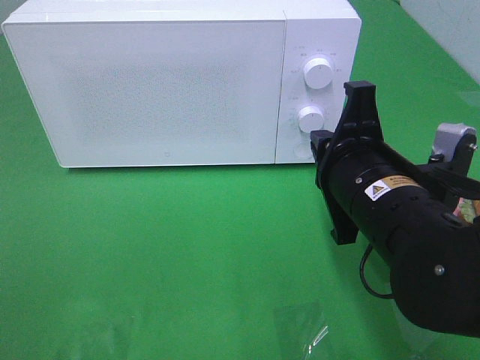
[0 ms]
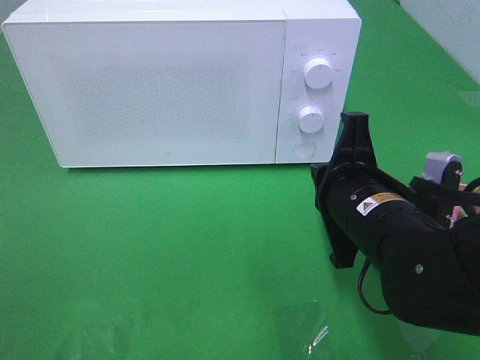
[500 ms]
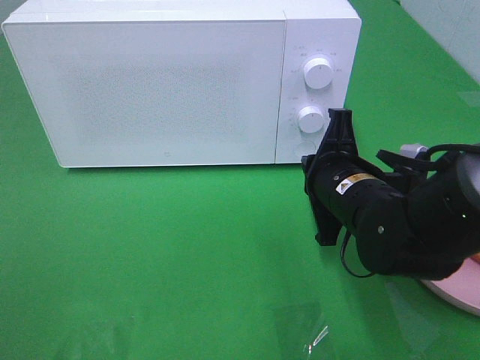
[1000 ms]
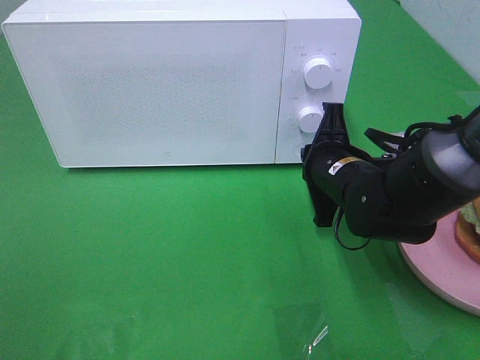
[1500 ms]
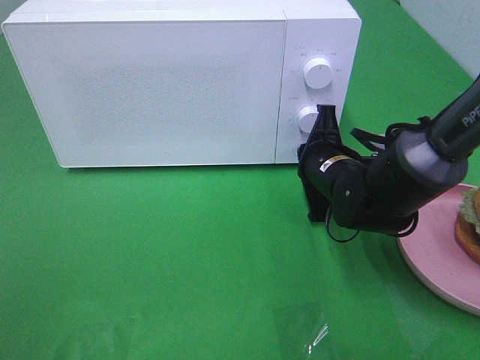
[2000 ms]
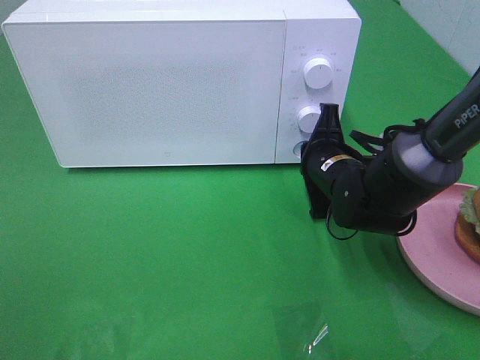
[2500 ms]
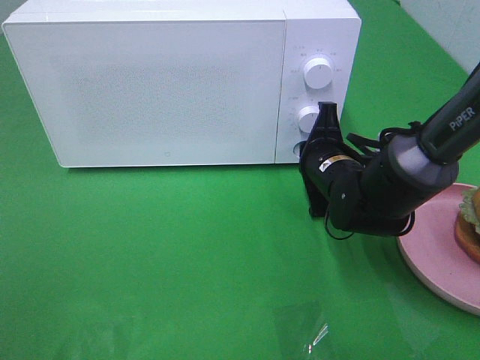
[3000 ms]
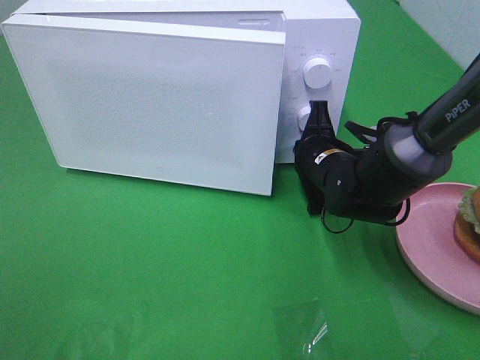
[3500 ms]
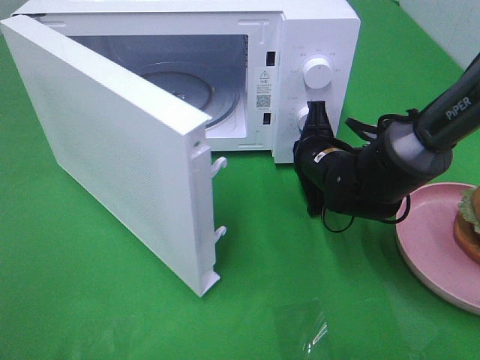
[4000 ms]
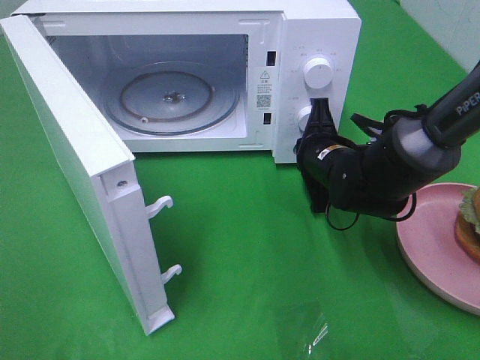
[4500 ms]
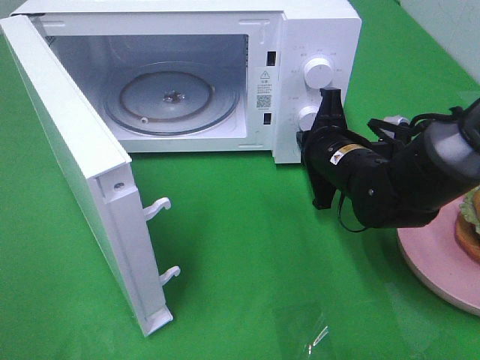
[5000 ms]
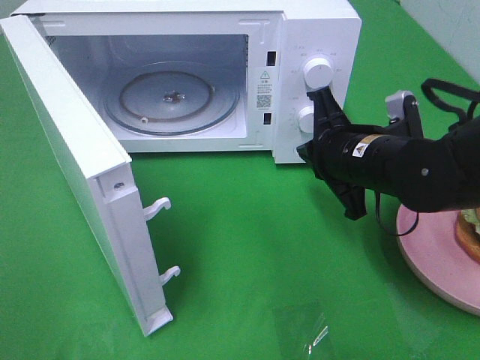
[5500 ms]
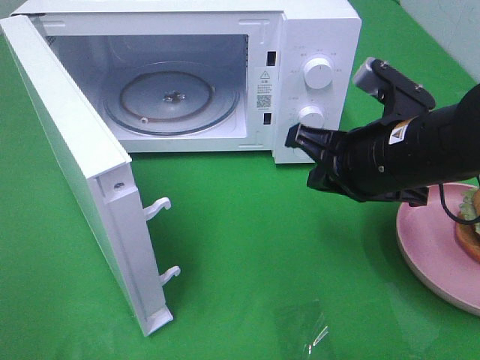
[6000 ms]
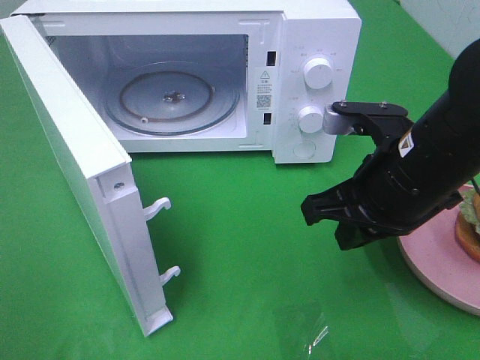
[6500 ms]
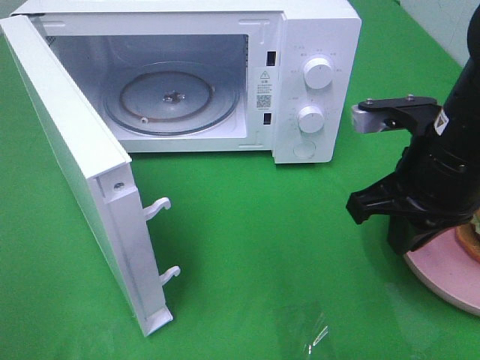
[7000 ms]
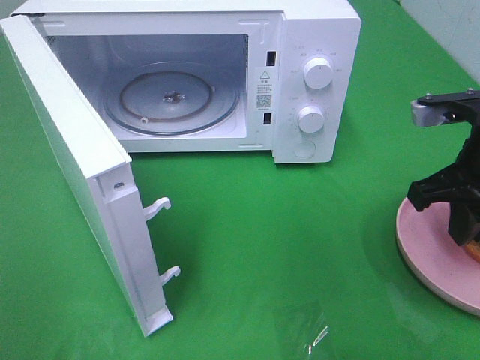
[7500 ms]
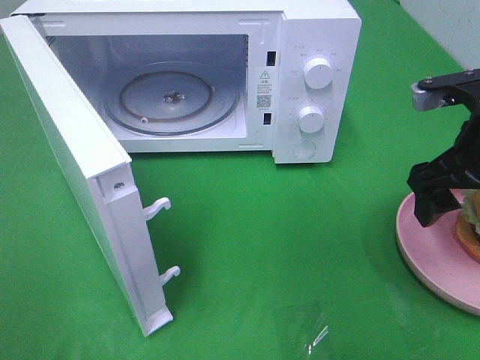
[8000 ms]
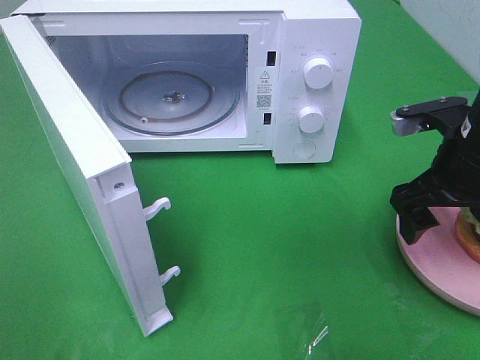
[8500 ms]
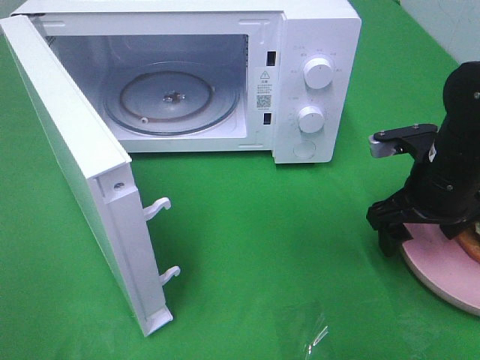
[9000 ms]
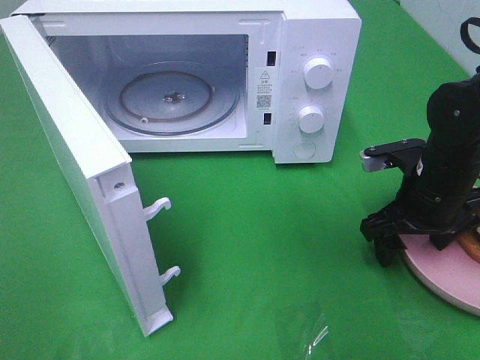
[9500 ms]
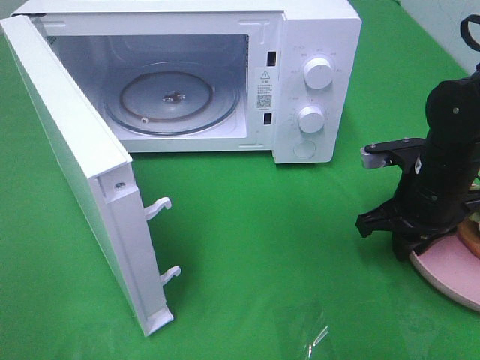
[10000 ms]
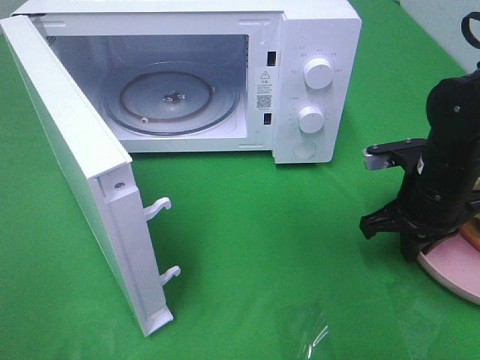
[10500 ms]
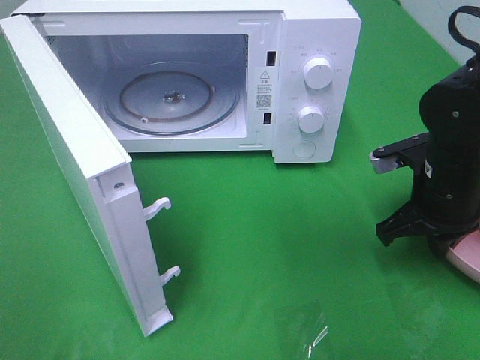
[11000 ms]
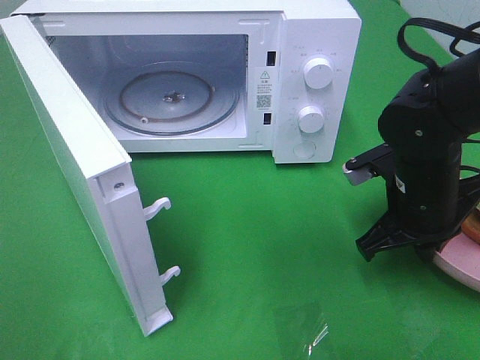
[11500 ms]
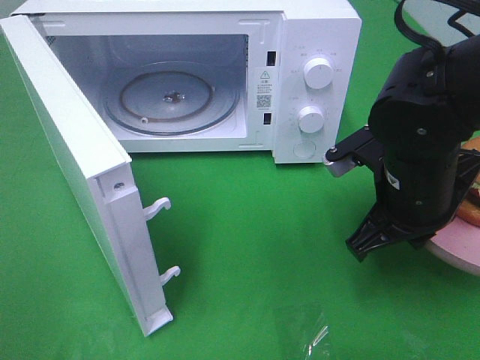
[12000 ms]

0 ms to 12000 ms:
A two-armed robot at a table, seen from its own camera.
Task of the whole recording: Heat the burger.
Step, 0 ms to 4500 ms: Right hand: press the switch.
Step, 5000 ms to 10500 ms: Right hand: grab the plate with the hamburger.
0 ms to 2000 ms: The right gripper moves forward and downward, roughly 15 cm.
4000 ms to 6000 ms: The right gripper is displaced backward and upward by some 15 cm.
6000 ms to 8000 ms: The right gripper heads to the right, covering some 10 cm, and opens up.
8000 ms to 10000 ms: The right gripper travels downward by approximately 10 cm, and closes up.
10000 ms to 12000 ms: The right gripper travels to the left and upward by roughly 10 cm.

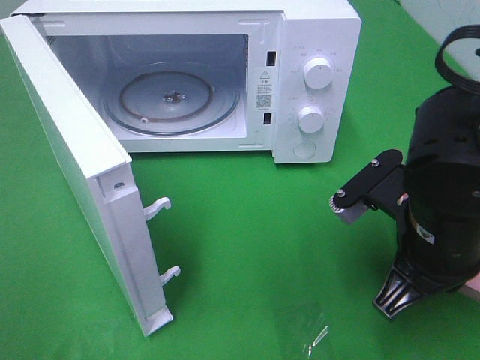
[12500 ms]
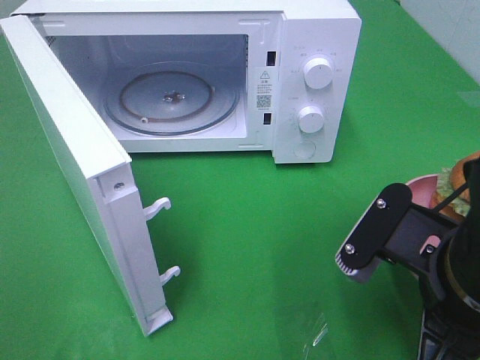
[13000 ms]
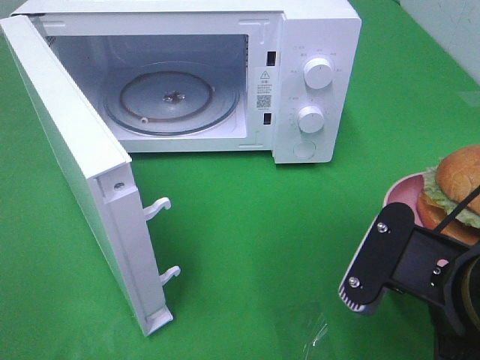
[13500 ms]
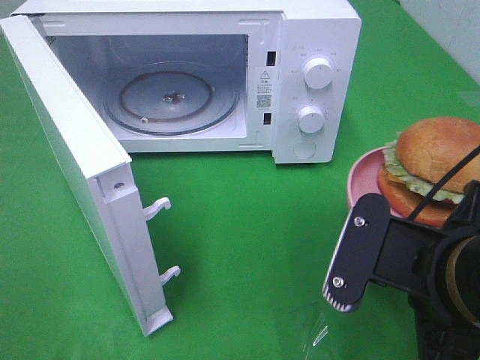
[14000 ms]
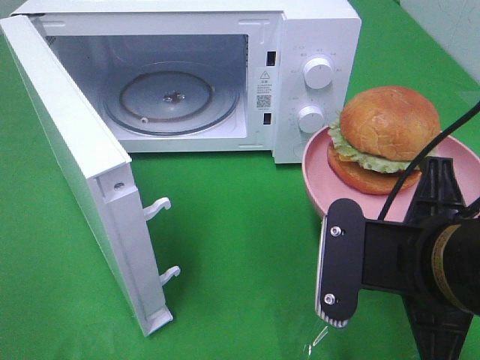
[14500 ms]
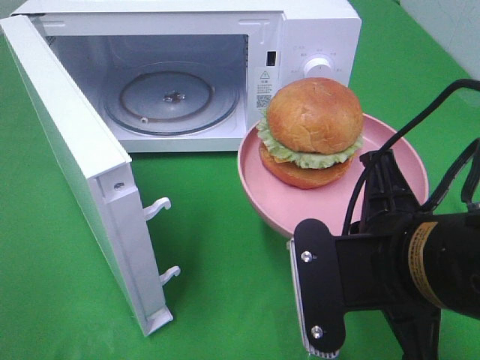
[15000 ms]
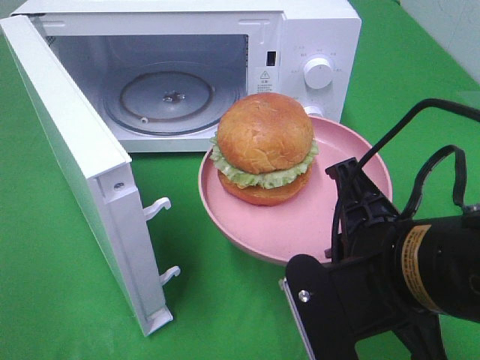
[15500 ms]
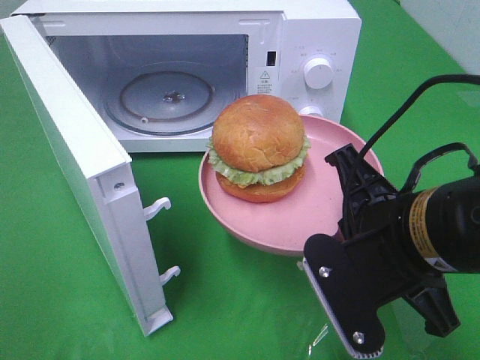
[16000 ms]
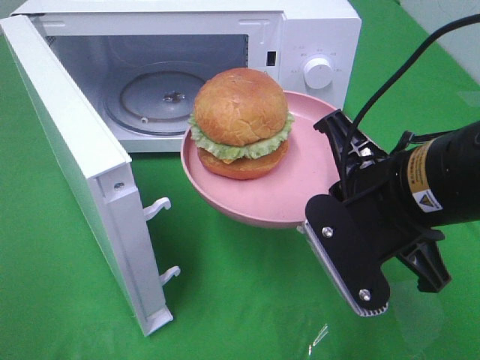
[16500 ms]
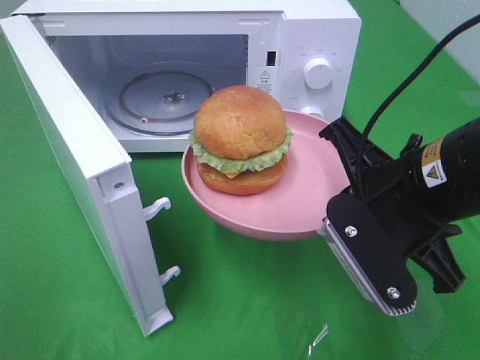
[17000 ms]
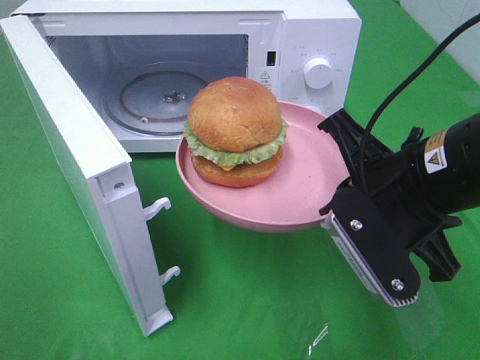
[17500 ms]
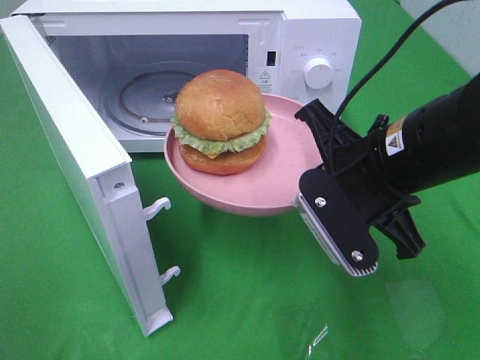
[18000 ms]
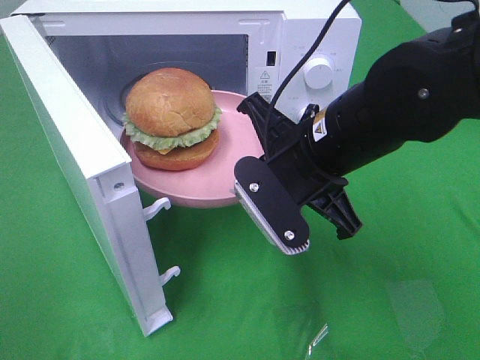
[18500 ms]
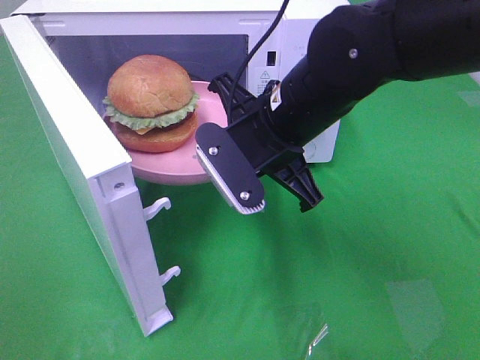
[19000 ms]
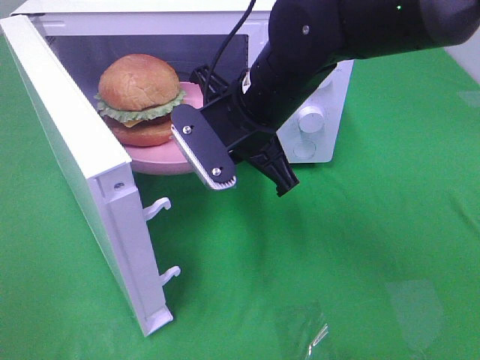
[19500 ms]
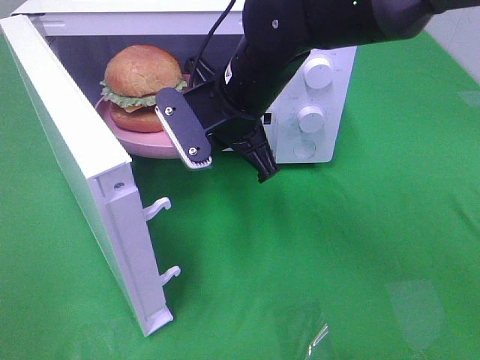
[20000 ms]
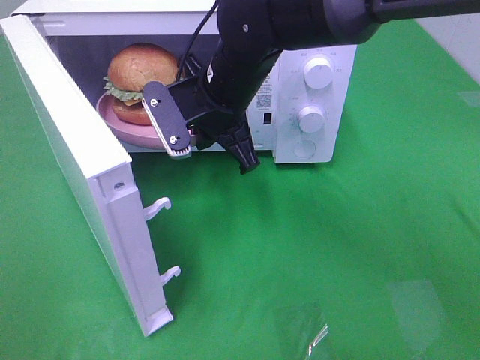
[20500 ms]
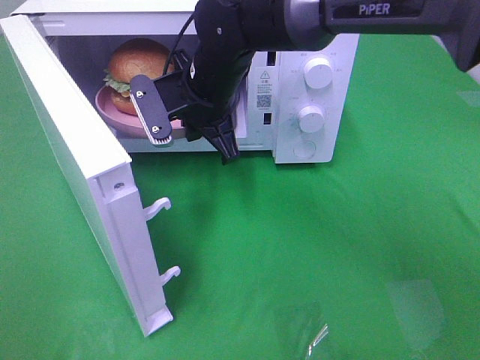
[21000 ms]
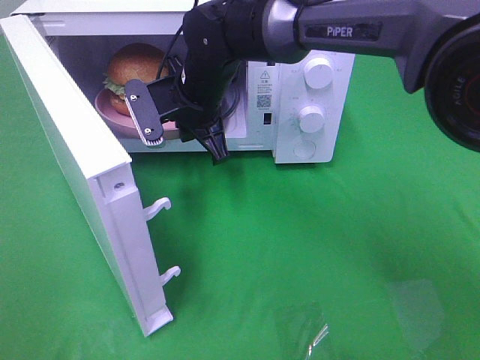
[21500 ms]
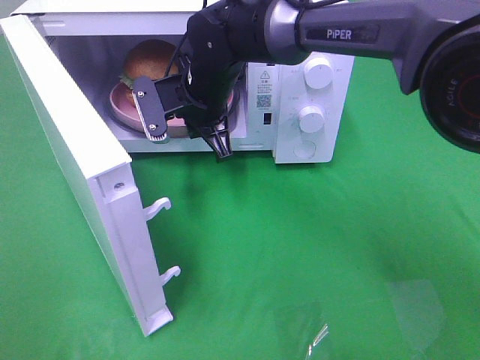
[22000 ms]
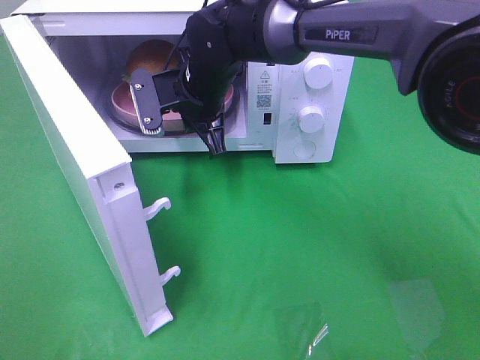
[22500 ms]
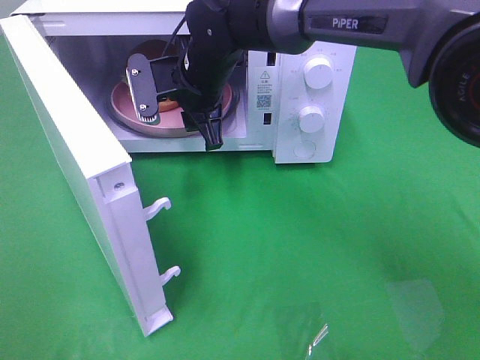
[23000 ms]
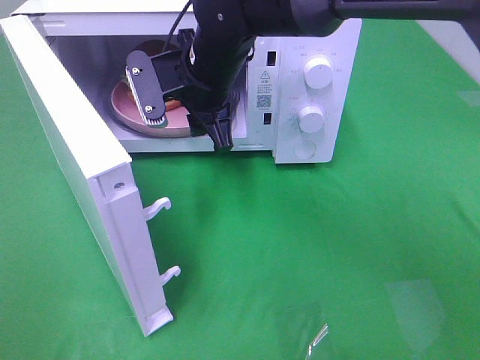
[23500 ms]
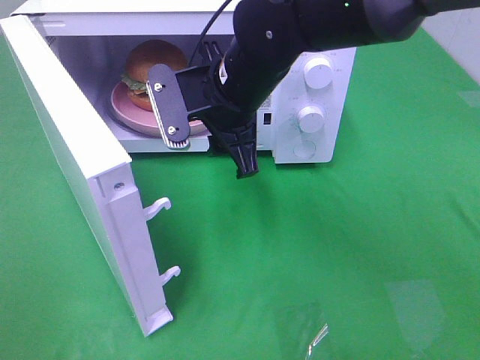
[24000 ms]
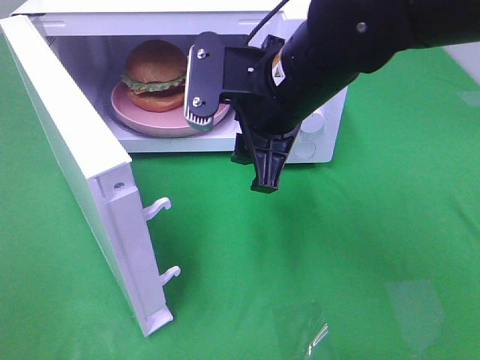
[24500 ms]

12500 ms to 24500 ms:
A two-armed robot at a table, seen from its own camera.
Task of the whole recording: Heat the burger.
Step, 12500 ms to 22500 ms: Right hand: place the plate in the microwave.
12500 ms to 14500 ms: The right gripper goes roughly 5 cm backward.
14500 ms to 16500 ms: The right gripper travels forward by about 5 cm.
16500 ms to 18500 ms: The right gripper is displaced forward and to the left by some 10 cm.
18500 ms to 20500 ms: The right gripper shifts roughly 15 cm forward and to the left.
20500 ms to 22500 ms: The right gripper travels forward by roughly 5 cm.
22500 ms to 24500 ms: The right gripper is displaced backward, to the right and upward by some 15 cm, and opens its fingers.

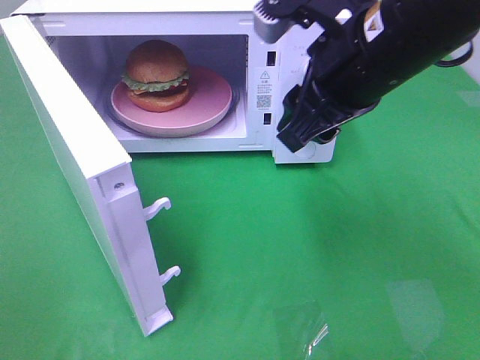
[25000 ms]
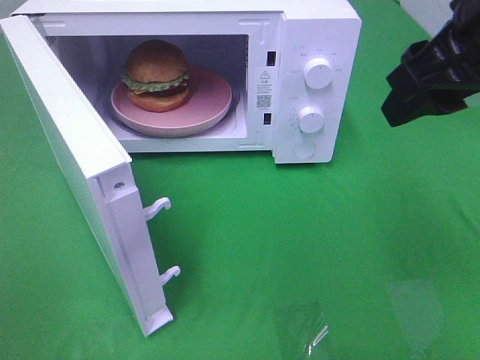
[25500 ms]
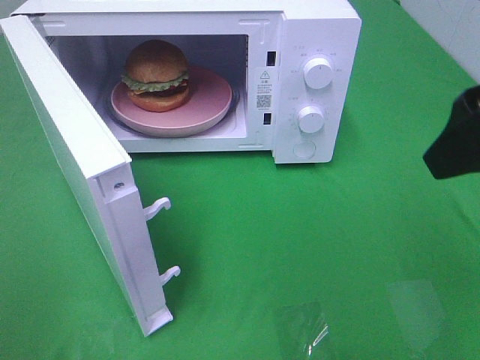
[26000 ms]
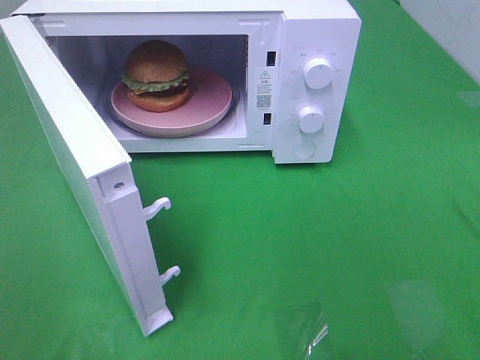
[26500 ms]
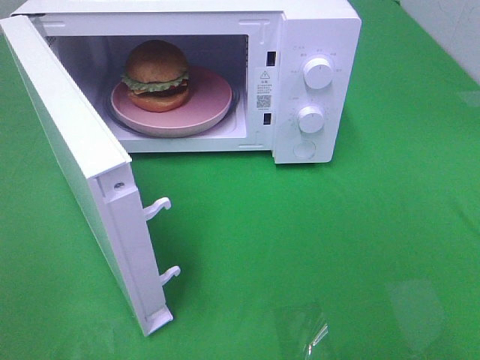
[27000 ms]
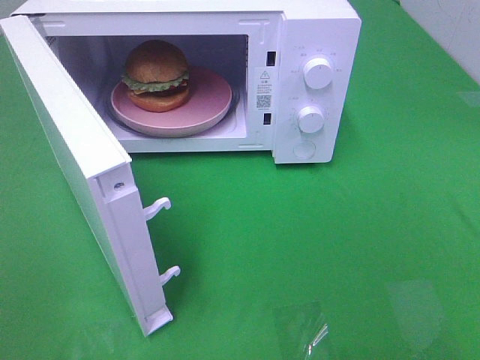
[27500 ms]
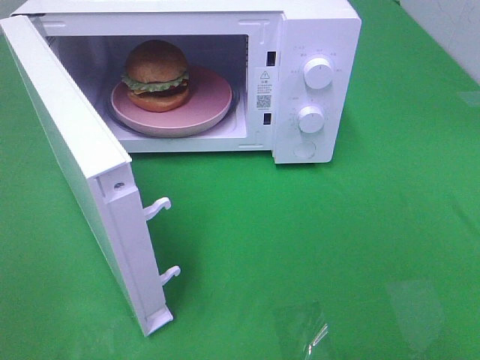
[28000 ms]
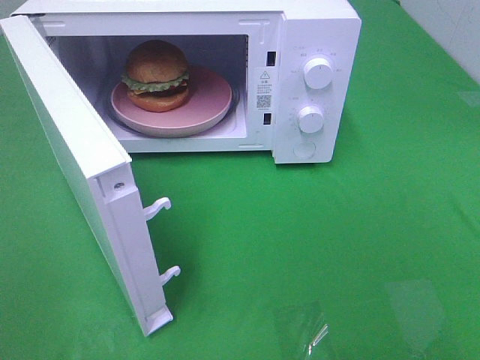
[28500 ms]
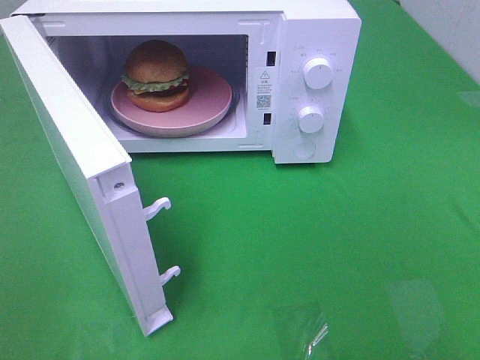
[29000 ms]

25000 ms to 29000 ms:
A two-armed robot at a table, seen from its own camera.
Task of the whole recording: Heat the burger.
25000 ms to 27000 ms: The right gripper is displaced backward and to the right by approximately 30 cm.
